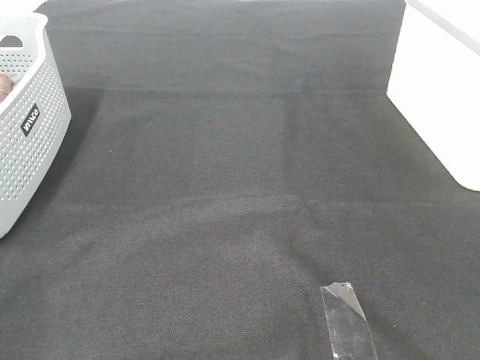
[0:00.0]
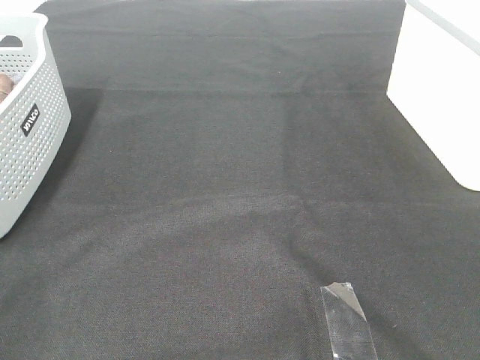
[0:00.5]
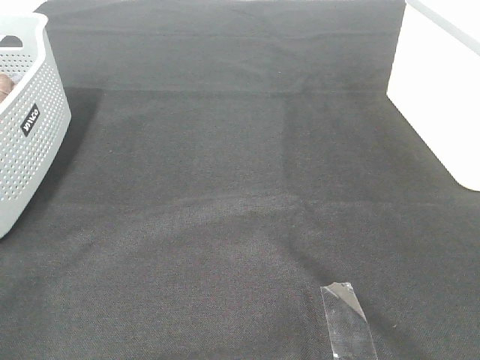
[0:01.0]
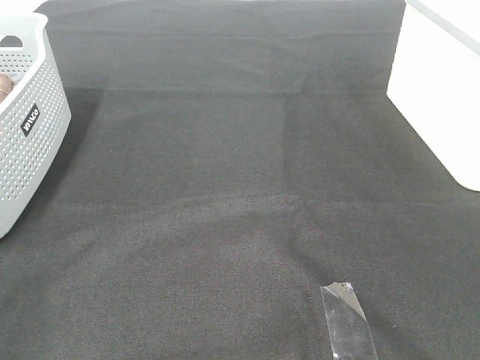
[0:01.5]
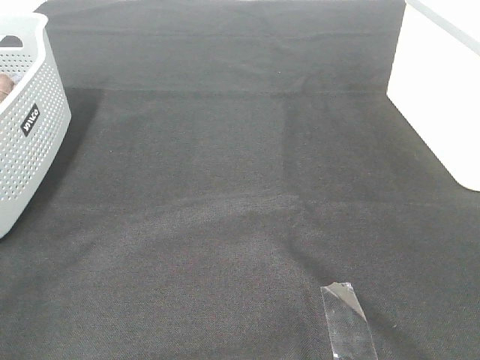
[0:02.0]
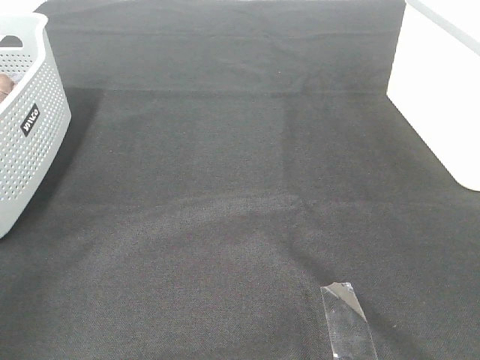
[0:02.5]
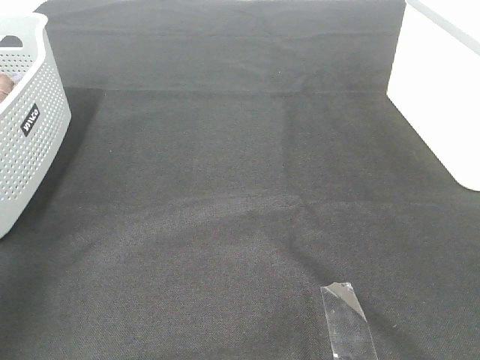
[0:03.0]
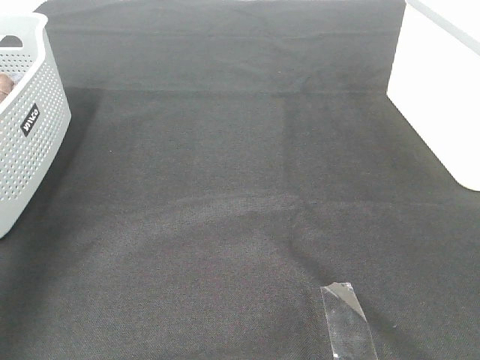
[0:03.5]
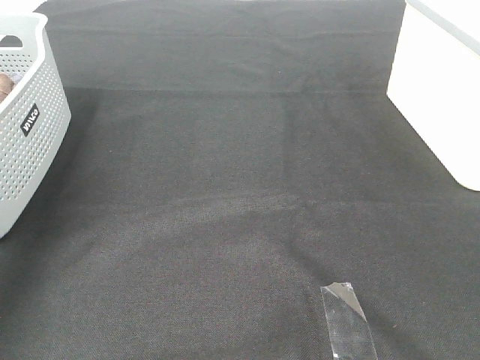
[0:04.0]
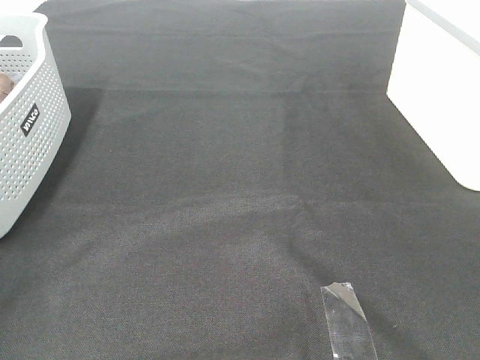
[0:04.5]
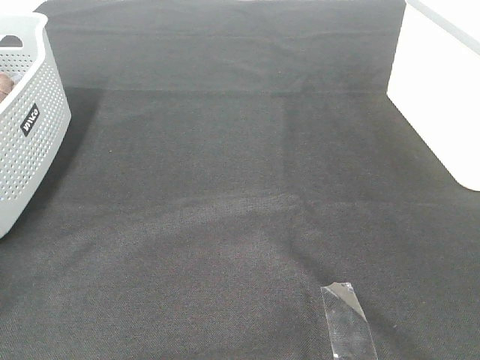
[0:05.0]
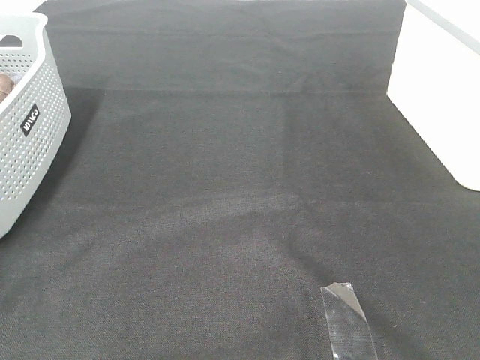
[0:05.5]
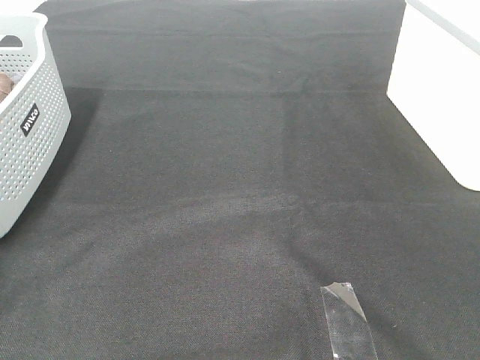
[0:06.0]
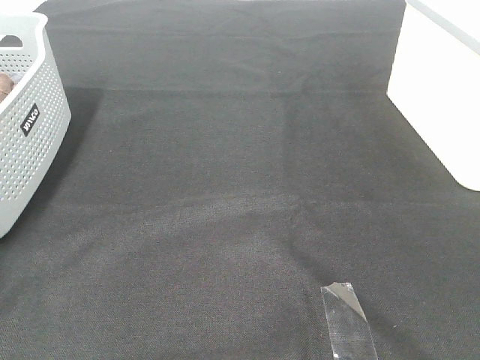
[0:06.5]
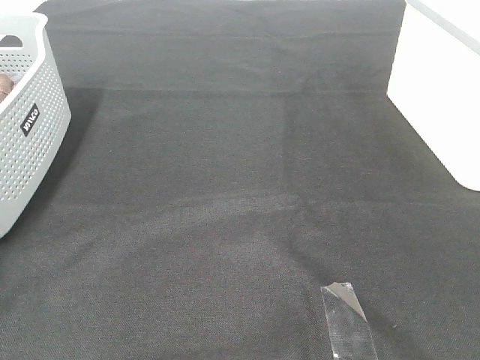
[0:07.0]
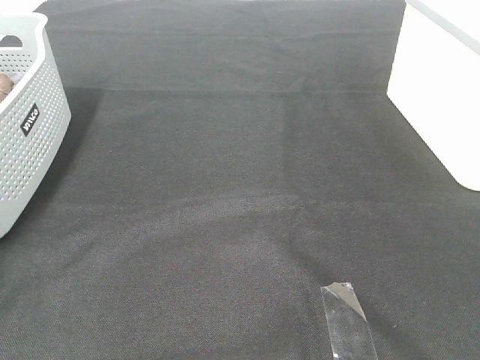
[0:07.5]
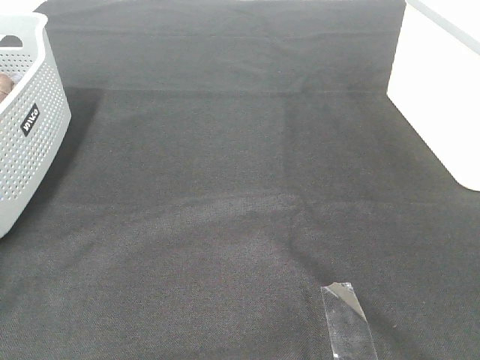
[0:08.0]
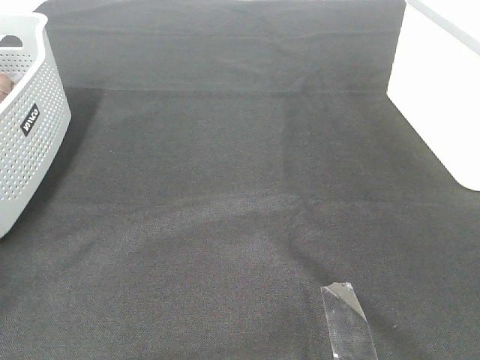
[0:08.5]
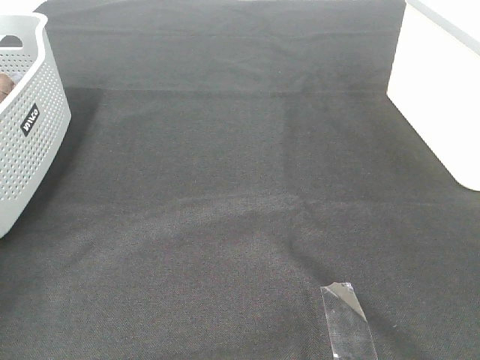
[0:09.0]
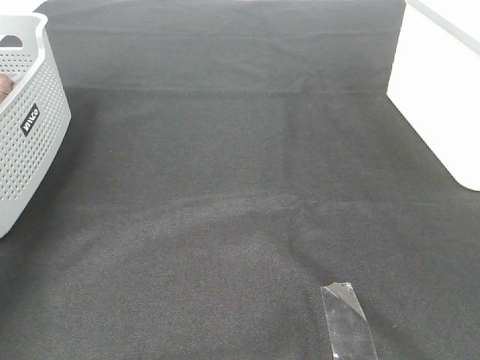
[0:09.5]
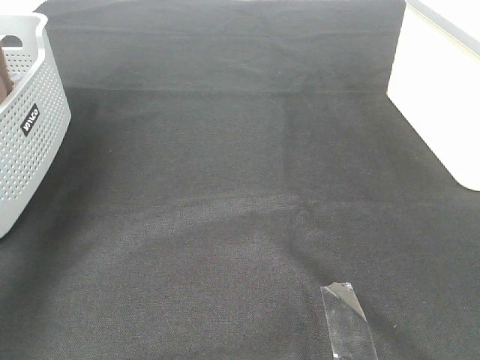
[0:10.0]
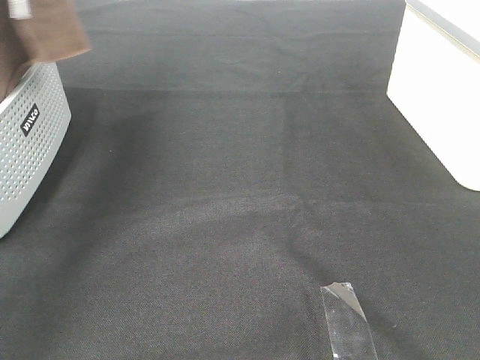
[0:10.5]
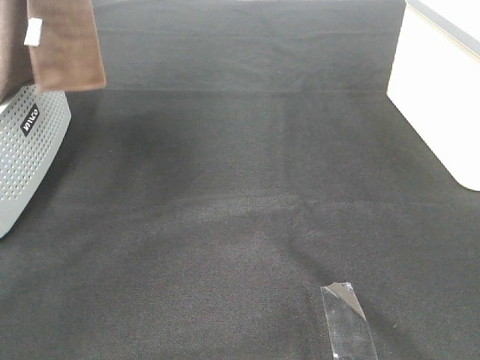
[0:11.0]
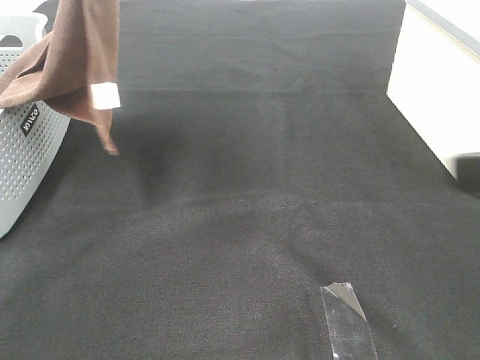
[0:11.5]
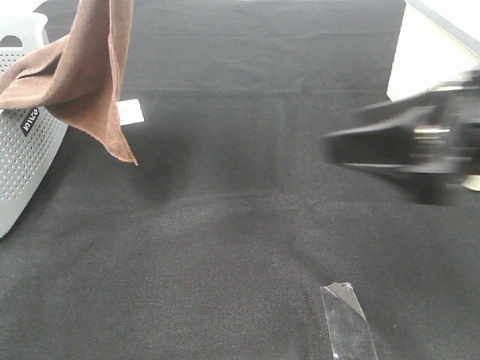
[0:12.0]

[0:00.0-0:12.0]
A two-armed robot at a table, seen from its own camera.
Task of the whole recording: Remove the towel and place it.
0:02.0 to 0:04.0: The left gripper shifts about 30 cm forward.
0:04.0 to 0:06.0: The left gripper is displaced downward, to the left and forward by approximately 20 cm.
0:08.0 to 0:10.0: The left gripper is displaced upward and to the right by some 30 cm.
0:10.0 to 0:12.0: The left gripper is displaced to the right by some 25 cm; the right gripper goes roughly 20 cm forward and to the left.

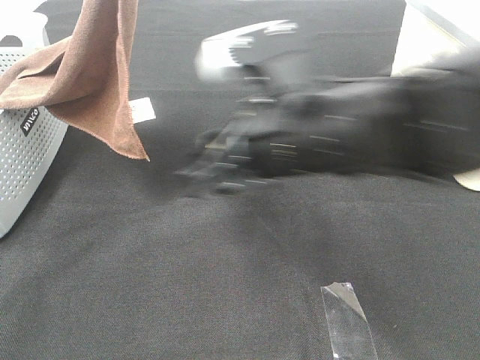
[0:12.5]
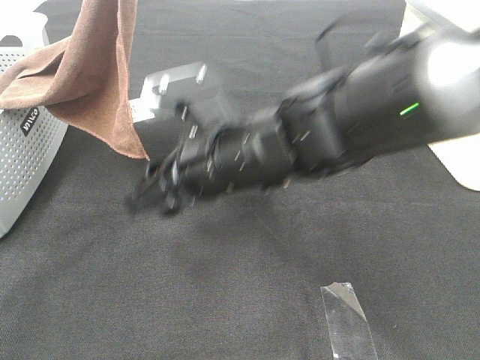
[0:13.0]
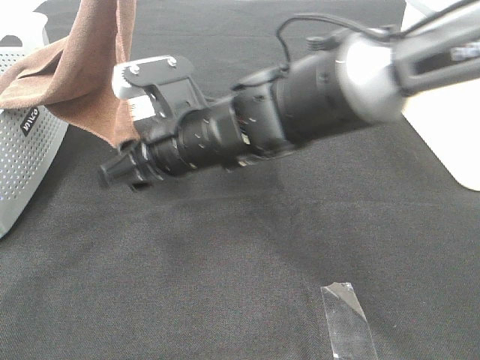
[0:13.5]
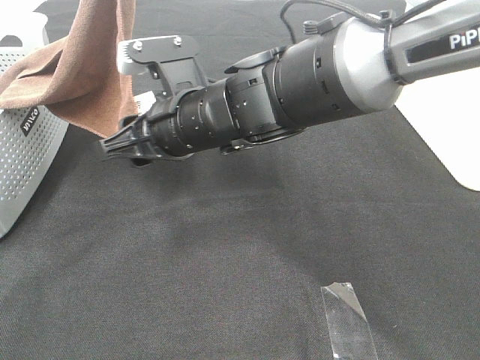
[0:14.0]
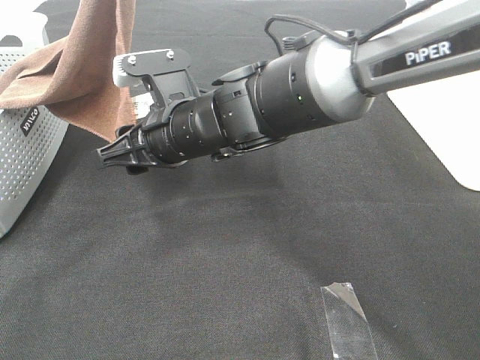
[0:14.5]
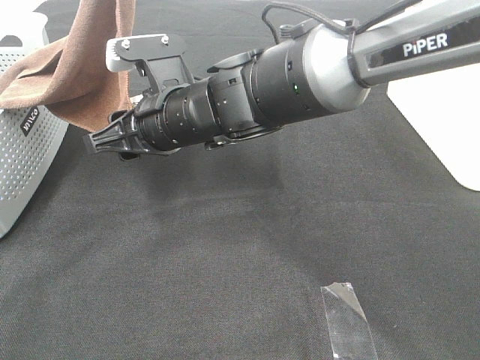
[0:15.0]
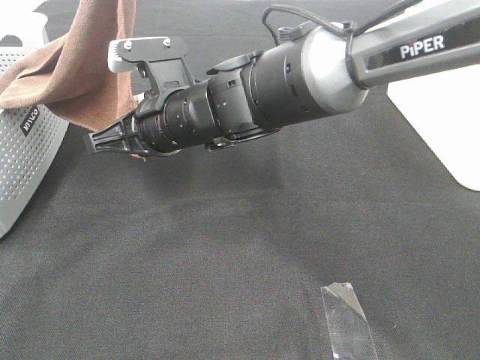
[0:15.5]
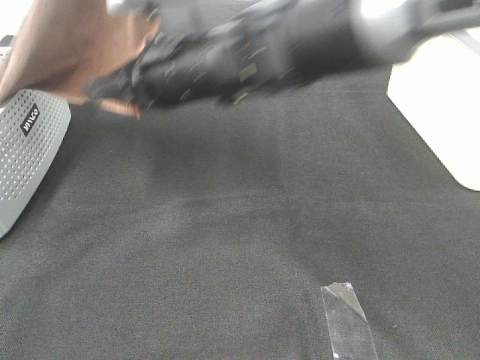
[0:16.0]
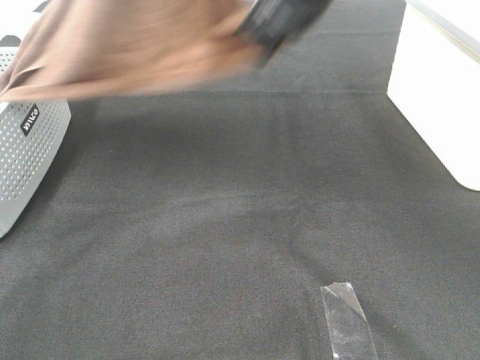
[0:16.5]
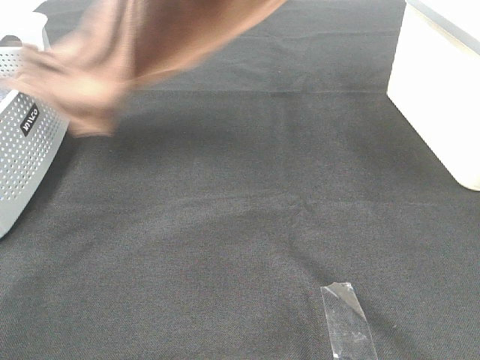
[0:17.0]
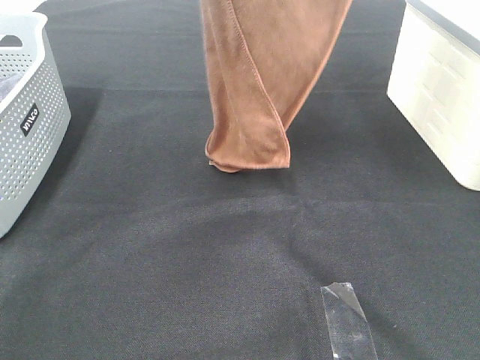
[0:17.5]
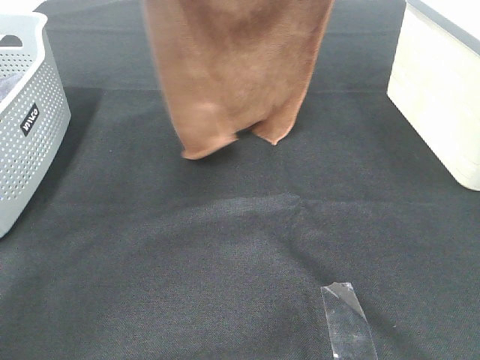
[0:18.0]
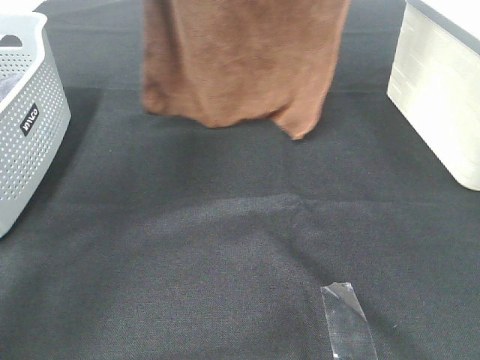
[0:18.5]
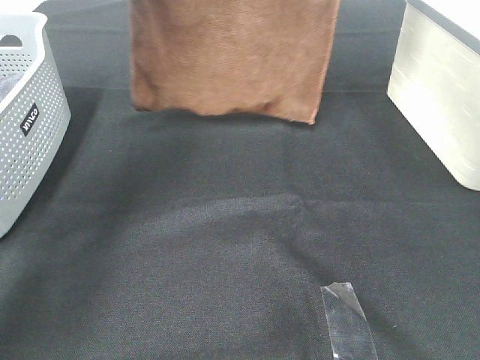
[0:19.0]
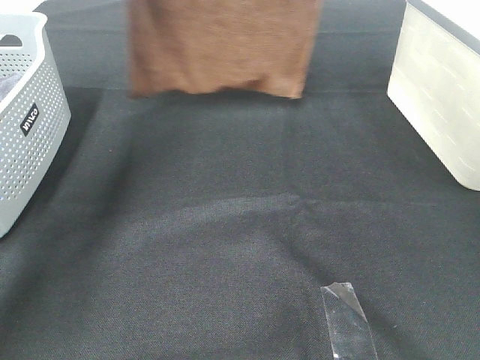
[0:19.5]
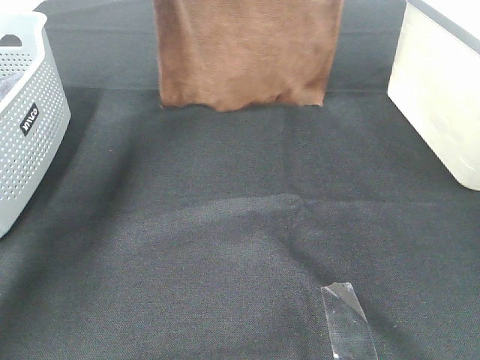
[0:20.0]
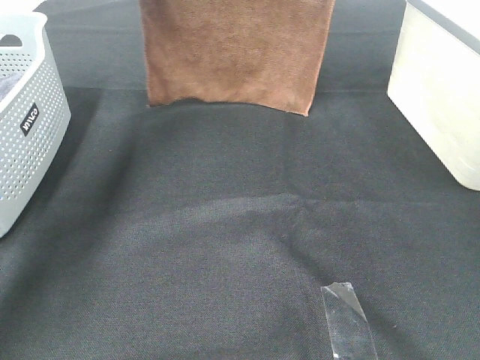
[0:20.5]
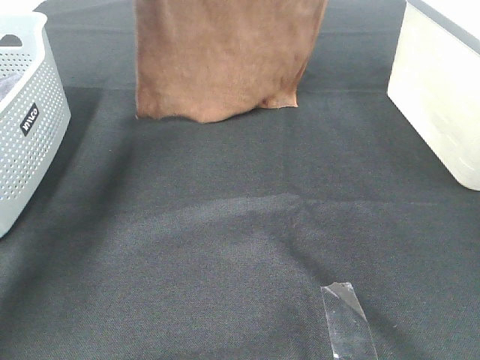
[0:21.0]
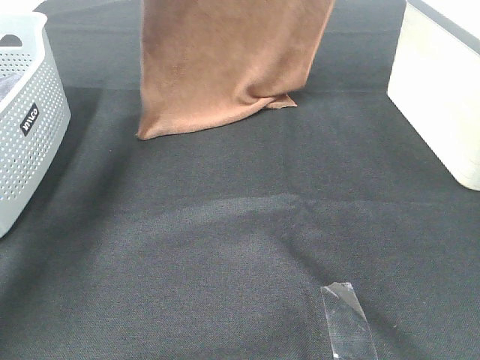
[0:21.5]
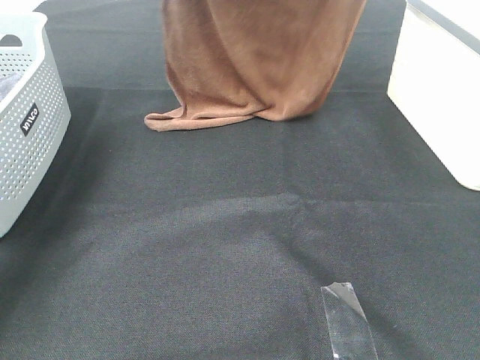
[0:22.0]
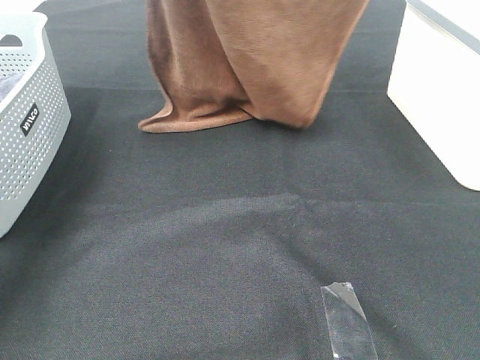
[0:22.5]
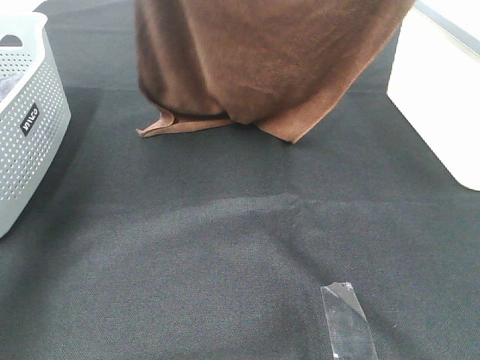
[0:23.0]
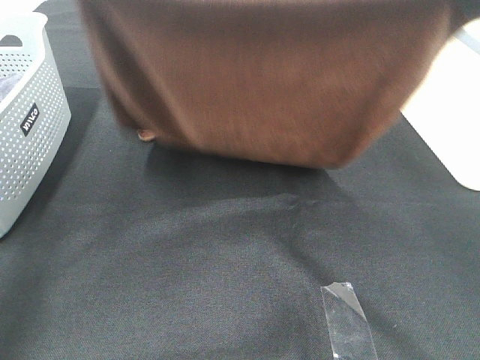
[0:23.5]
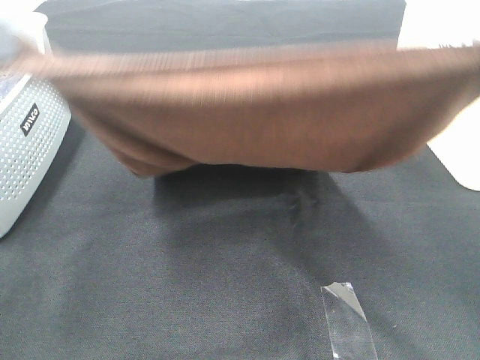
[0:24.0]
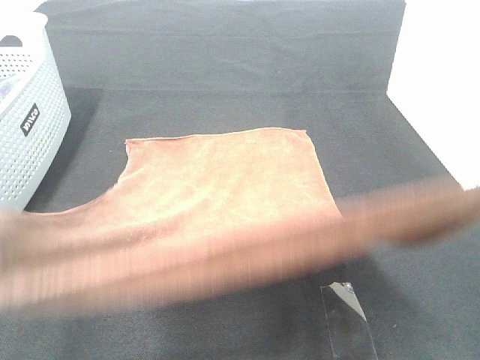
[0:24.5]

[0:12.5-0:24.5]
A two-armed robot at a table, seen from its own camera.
Task of the whole recording: Remove the towel and place it.
Step, 0:12.5 to 0:16.0: Right hand: grab a corner of the brown towel and straighten it.
Step, 0:16.5 to 0:21.5: Left hand: spread the brown towel flat on the table.
Step, 0:16.5 to 0:21.5: Right hand: spread the brown towel flat on the table.
0:12.5 to 0:14.5: The right gripper moves to the left, forward and downward, some 15 cm.
0:14.5 to 0:16.5: The left gripper heads upward, covering some 5 cm. Meanwhile the right gripper shifts roughly 25 cm upward and to the right, and closes its fingers.
0:16.5 to 0:18.5: The left gripper shifts roughly 15 cm forward and to the left, while the right gripper goes about 20 cm upward, to the right and forward.
0:18.5 to 0:20.5: The right gripper travels forward by some 10 cm; the left gripper goes roughly 10 cm forward and downward.
0:20.5 to 0:22.5: The right gripper shifts approximately 10 cm backward. The left gripper moves backward, approximately 5 cm.
0:22.5 to 0:24.5: The two grippers go roughly 35 cm backward.

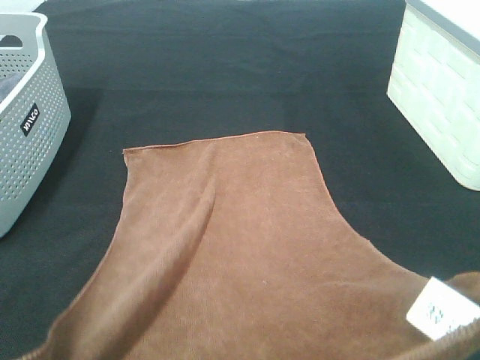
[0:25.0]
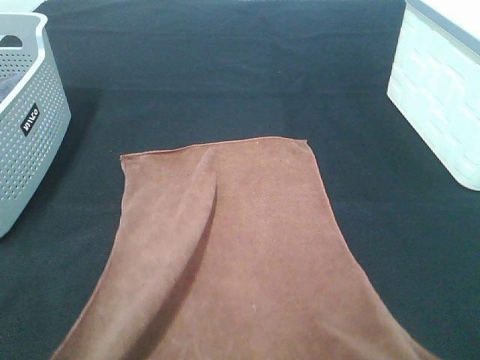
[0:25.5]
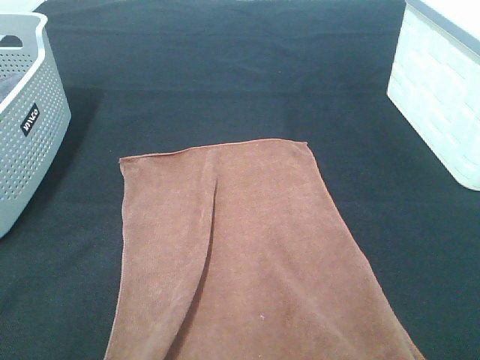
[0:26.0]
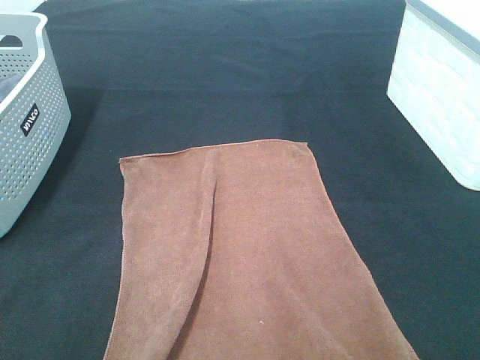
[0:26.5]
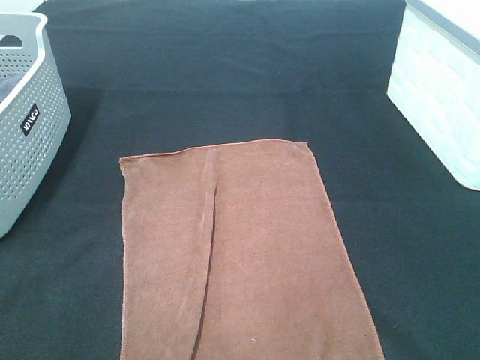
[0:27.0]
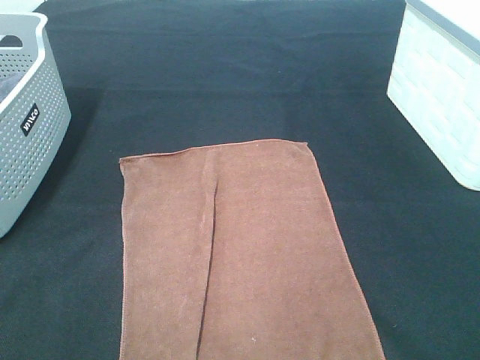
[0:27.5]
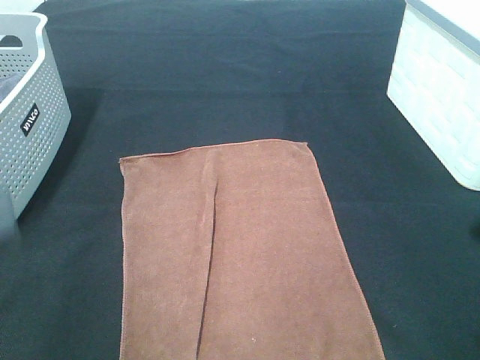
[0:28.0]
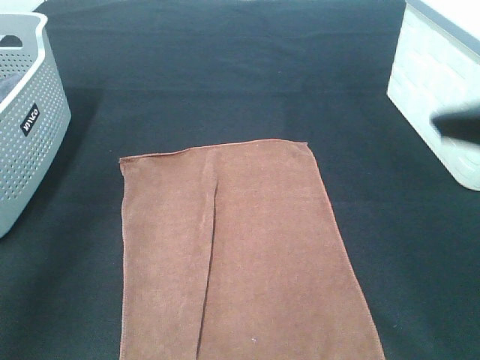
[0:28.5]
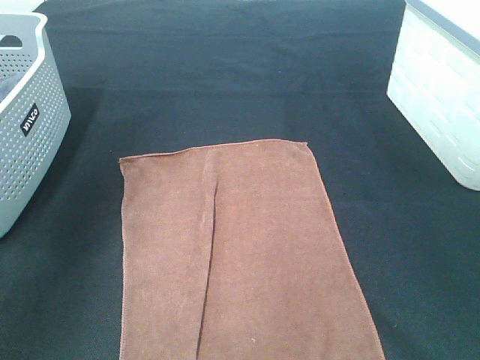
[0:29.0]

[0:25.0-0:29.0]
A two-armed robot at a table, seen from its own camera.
Task of the whole recording: Remove the towel and place it.
0:25.0 to 0:27.0: Both grippers travel together downward, roughly 5 cm. The right gripper opens its fingers. The left gripper opens.
0:27.0 to 0:29.0: The right gripper travels upward and forward by about 15 cm. The left gripper moves forward and upward, approximately 30 cm.
